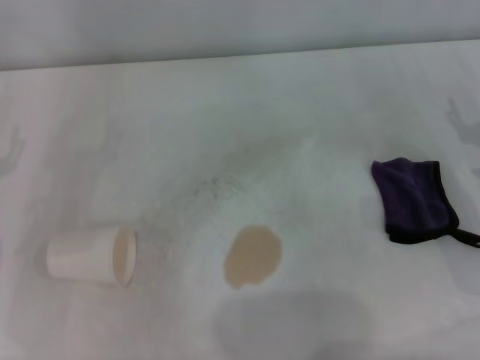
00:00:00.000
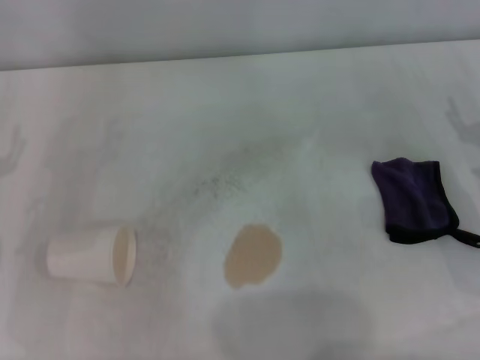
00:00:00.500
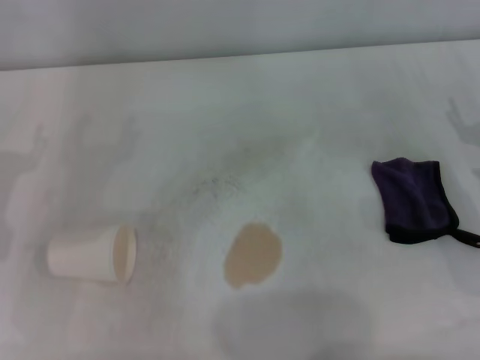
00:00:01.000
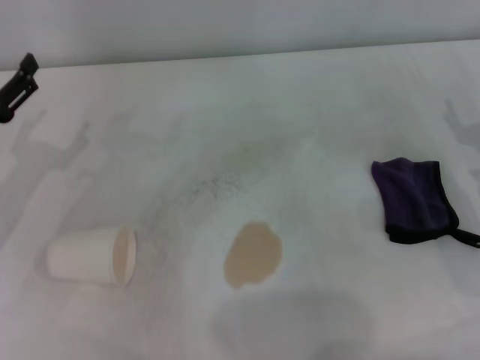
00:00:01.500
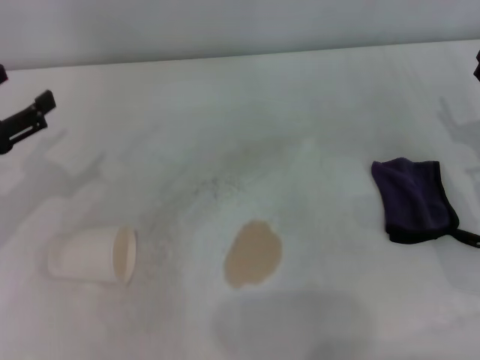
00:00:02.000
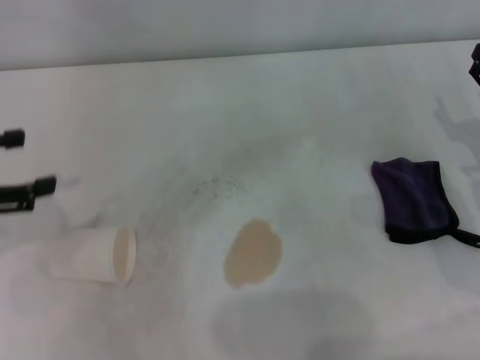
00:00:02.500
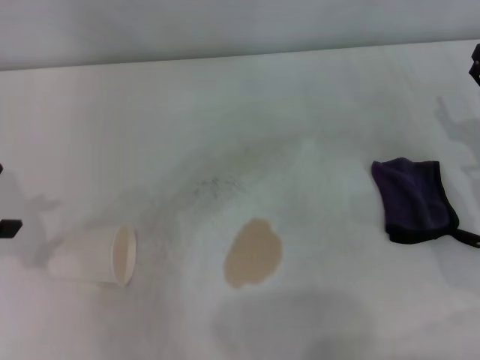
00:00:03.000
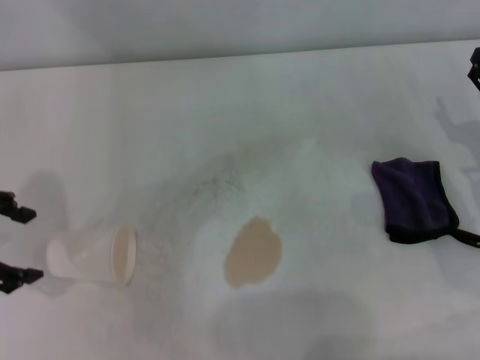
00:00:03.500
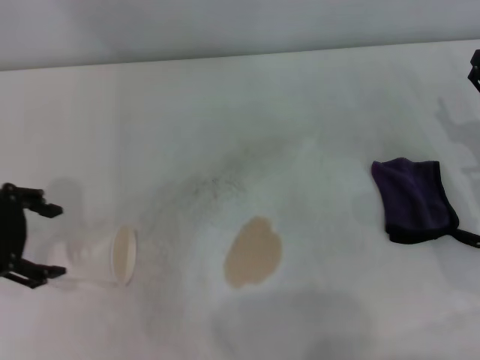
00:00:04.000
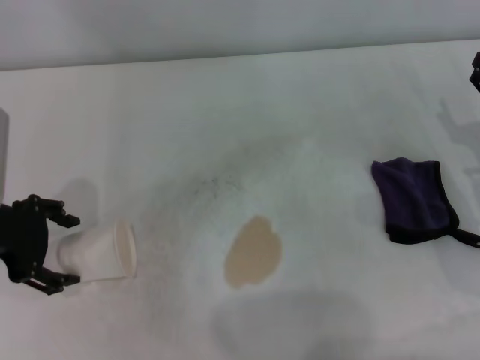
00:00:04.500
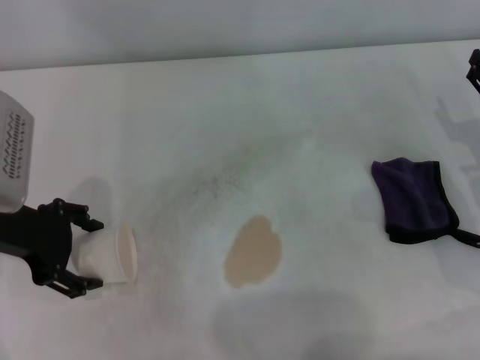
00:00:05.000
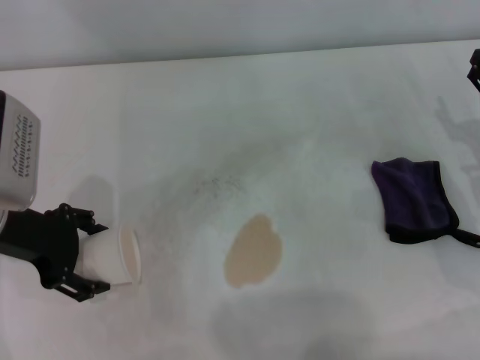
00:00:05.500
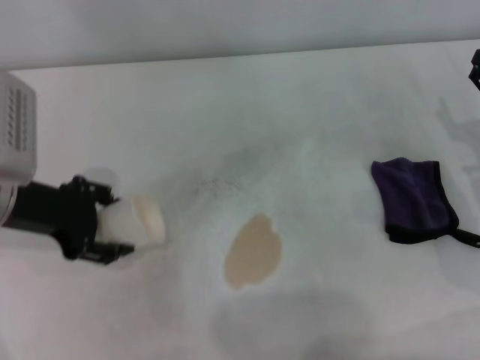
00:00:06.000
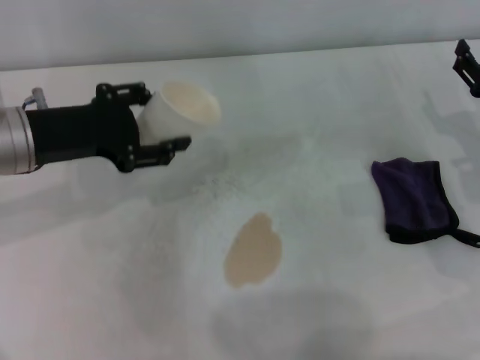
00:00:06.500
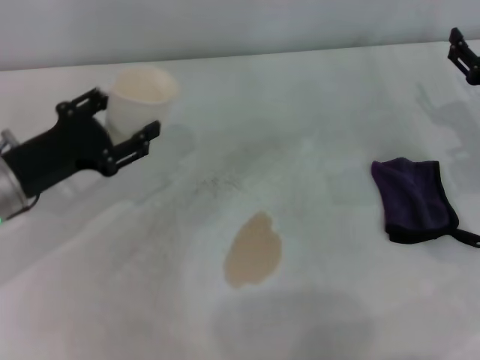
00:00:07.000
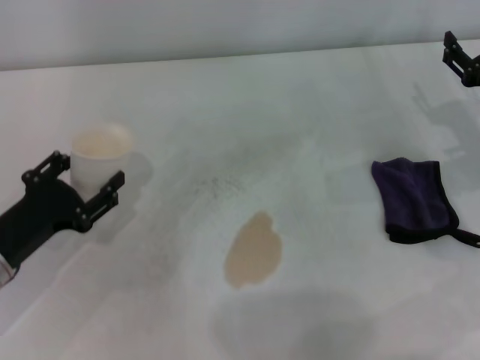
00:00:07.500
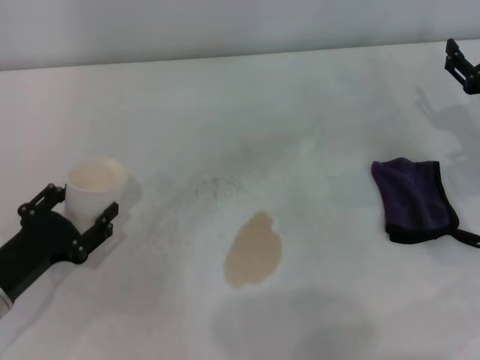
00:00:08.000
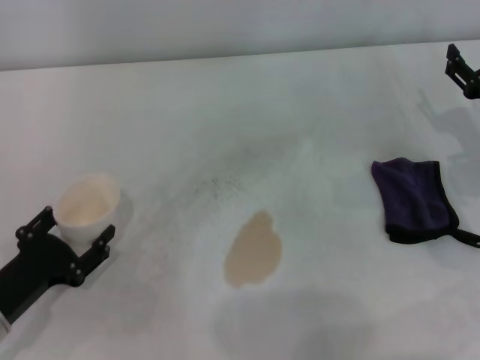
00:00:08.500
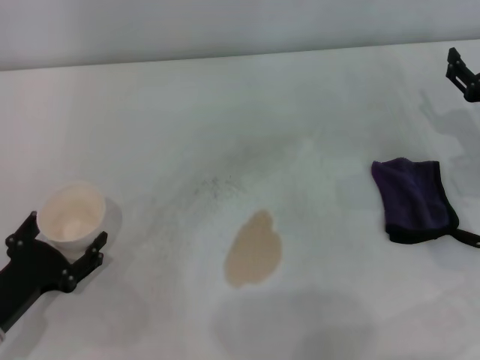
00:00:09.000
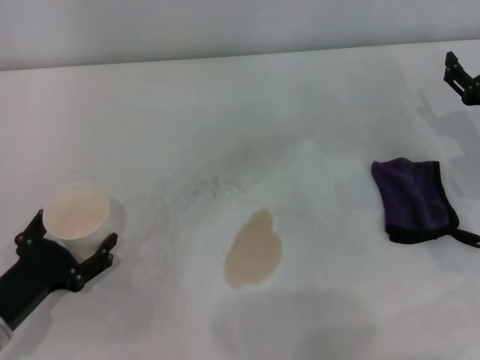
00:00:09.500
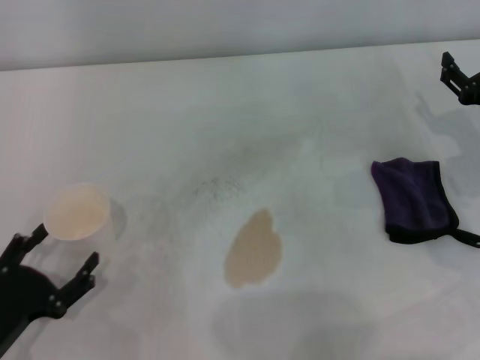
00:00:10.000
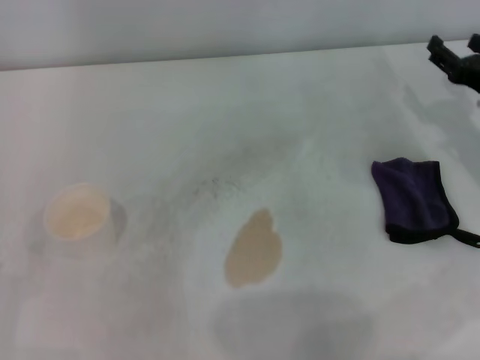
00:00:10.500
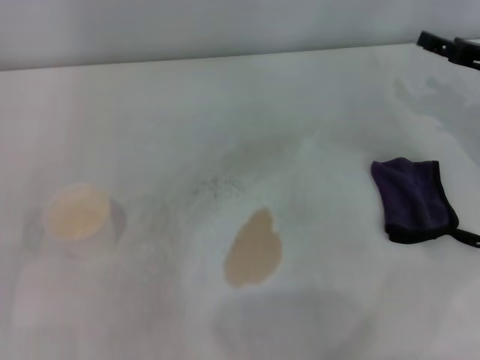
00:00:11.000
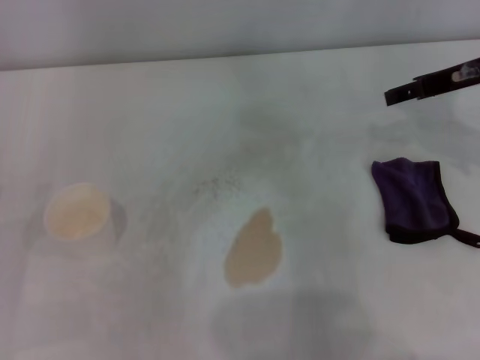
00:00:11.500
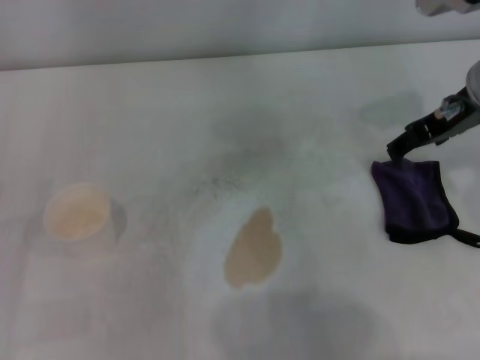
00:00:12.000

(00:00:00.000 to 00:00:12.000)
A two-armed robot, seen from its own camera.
Step, 00:00:00.000 - 00:00:05.500: Grasp the paper cup with the left gripper.
Step, 00:00:06.000 - 00:00:09.500: Stand the paper cup upright with the left gripper.
00:00:00.000 - 00:00:02.000: The left gripper moves upward, some 5 cm.
00:00:02.000 - 00:00:04.000: The left gripper shifts roughly 5 cm upward.
00:00:04.000 - 00:00:06.000: The left gripper moves some 5 cm.
00:00:06.000 - 00:00:08.000: The left gripper heads downward and backward, covering about 15 cm, and closes up.
00:00:08.000 - 00:00:10.000: The left gripper travels backward by some 5 cm, and opens up.
00:00:10.000 - 00:00:12.000: The right gripper shifts approximately 15 cm upward and to the left. The left gripper heads to the left, covering approximately 5 cm.

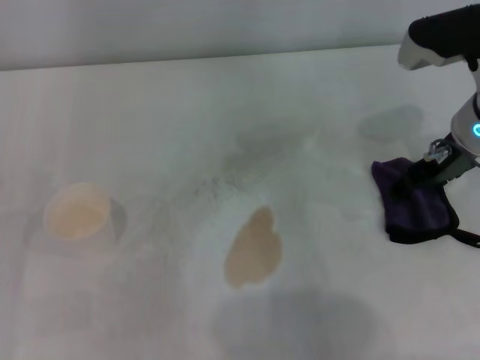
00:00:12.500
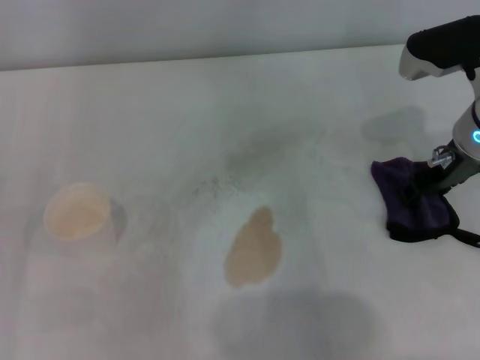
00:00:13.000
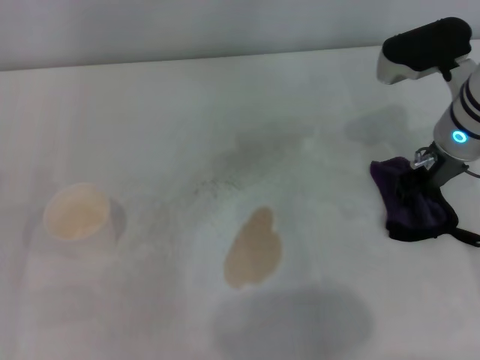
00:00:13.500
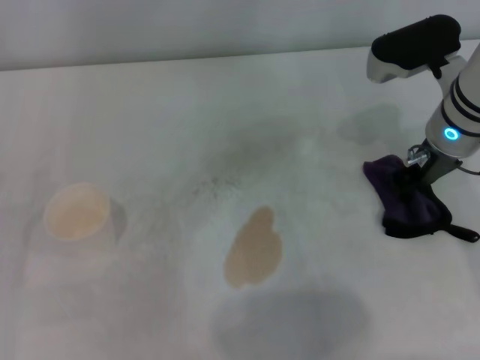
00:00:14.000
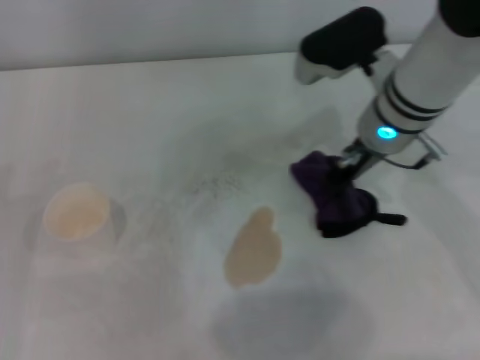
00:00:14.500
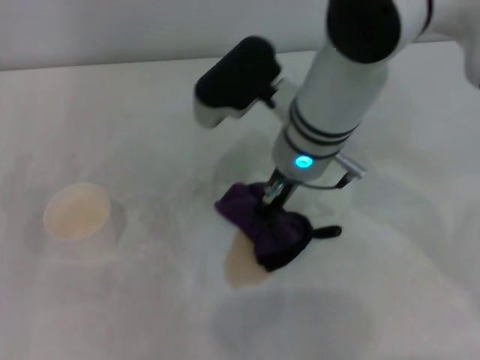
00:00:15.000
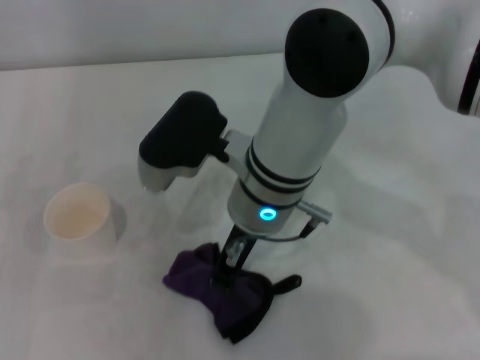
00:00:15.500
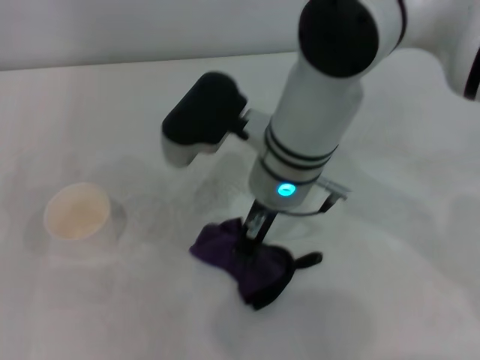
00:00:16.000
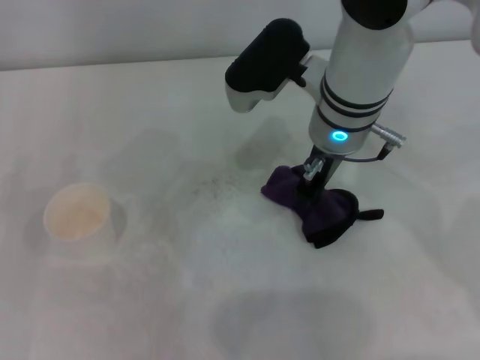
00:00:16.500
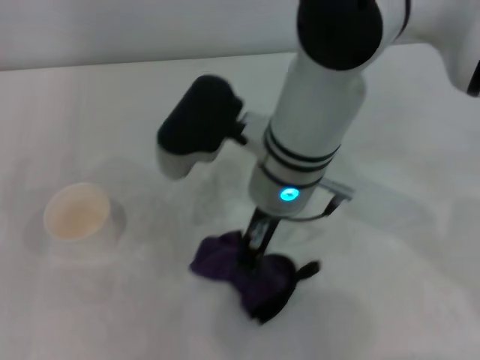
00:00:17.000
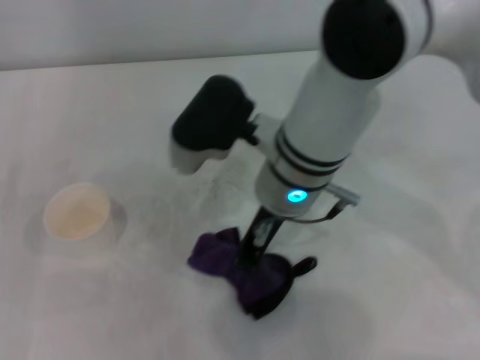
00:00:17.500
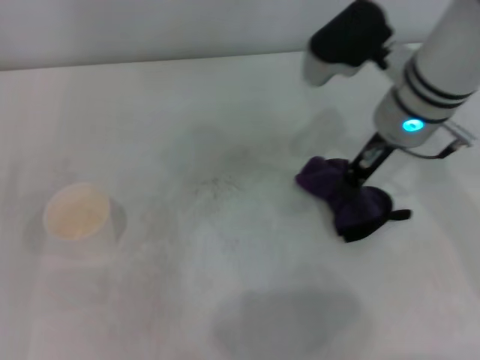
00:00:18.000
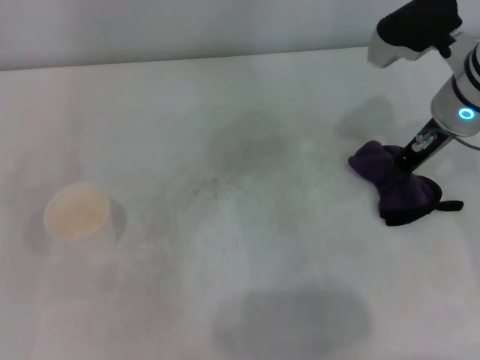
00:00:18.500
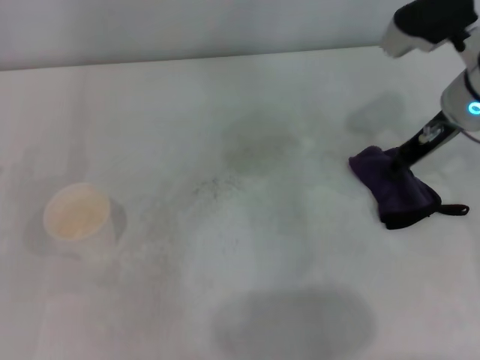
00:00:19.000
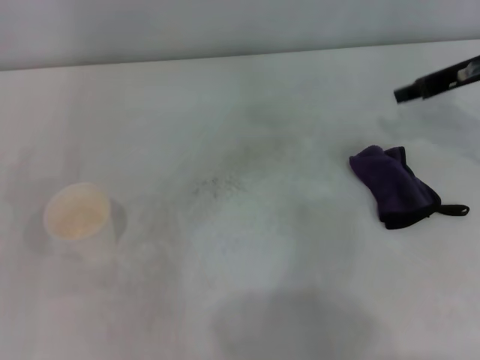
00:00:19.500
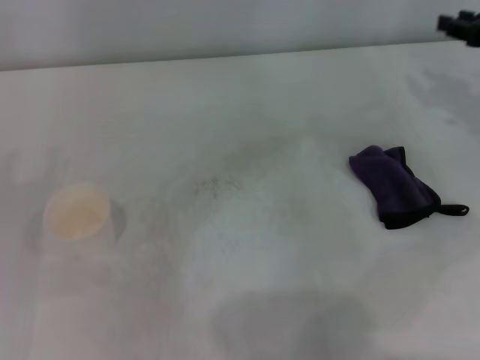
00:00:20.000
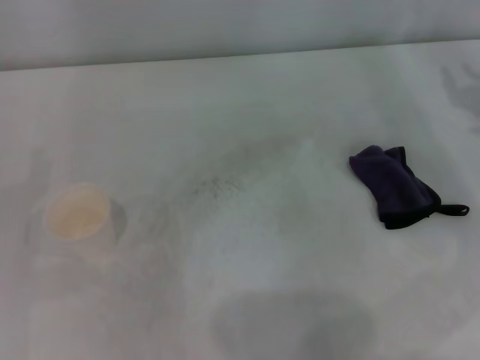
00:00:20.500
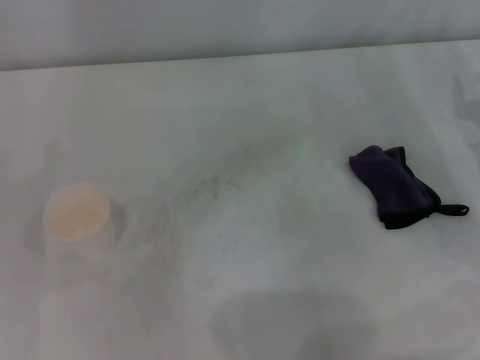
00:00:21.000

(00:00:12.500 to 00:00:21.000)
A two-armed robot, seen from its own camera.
Step, 00:00:14.000 - 00:00:18.000: Wipe the stains off the table with the right gripper.
00:00:12.500 - 00:00:14.500: The right gripper goes some 10 cm to the left, and closes up.
00:00:14.500 - 00:00:16.500: The right gripper is displaced to the left by roughly 5 cm.
00:00:16.500 - 00:00:19.000: The right gripper shifts about 15 cm to the right.
00:00:19.000 - 00:00:21.000: The right gripper is displaced to the right, downward and backward by some 15 cm.

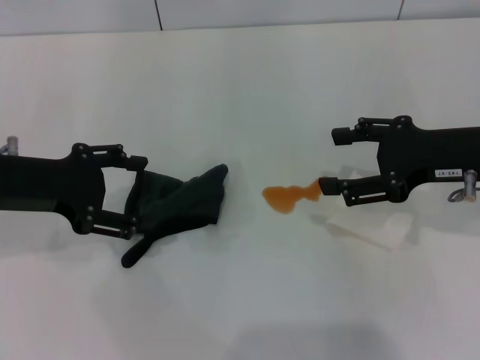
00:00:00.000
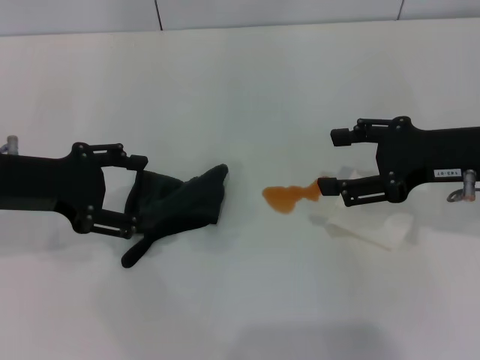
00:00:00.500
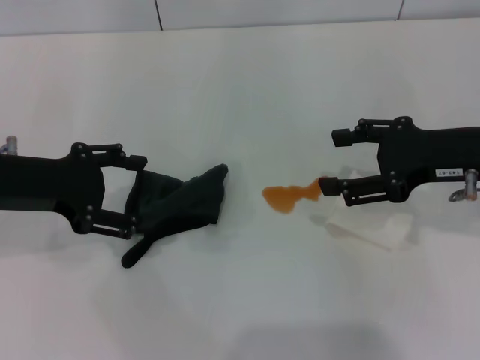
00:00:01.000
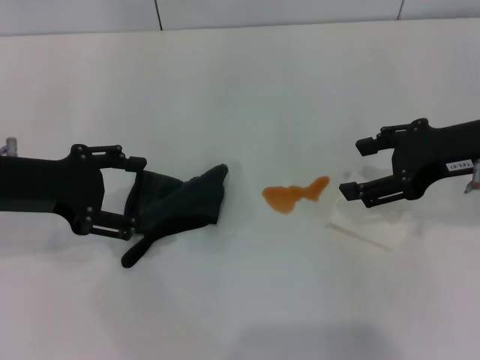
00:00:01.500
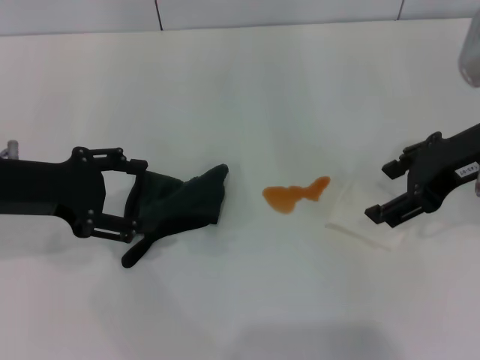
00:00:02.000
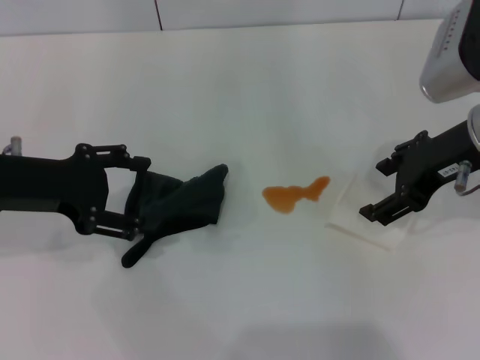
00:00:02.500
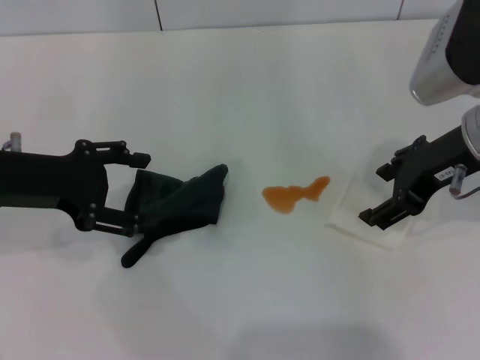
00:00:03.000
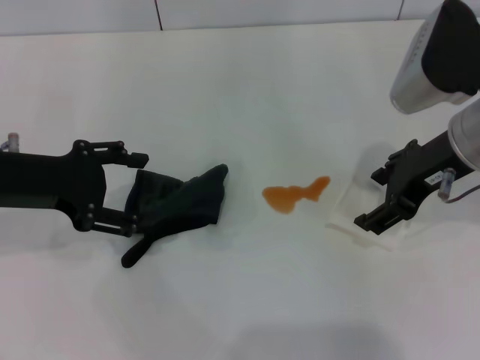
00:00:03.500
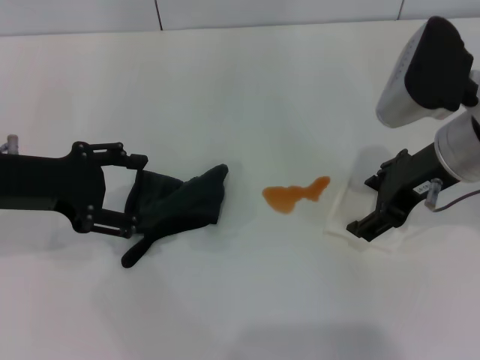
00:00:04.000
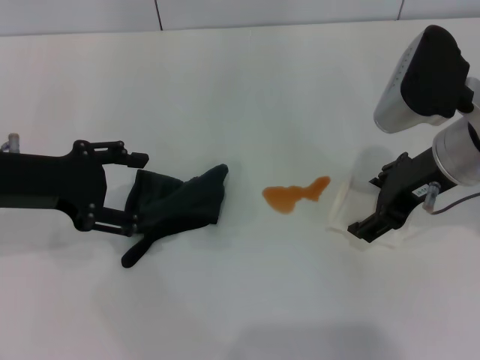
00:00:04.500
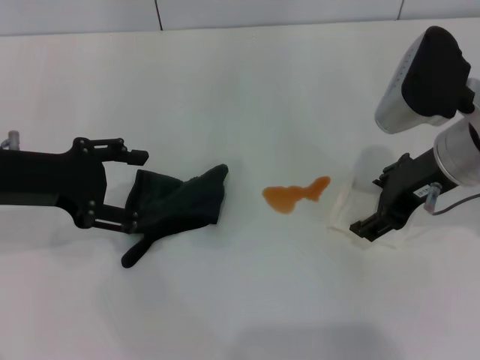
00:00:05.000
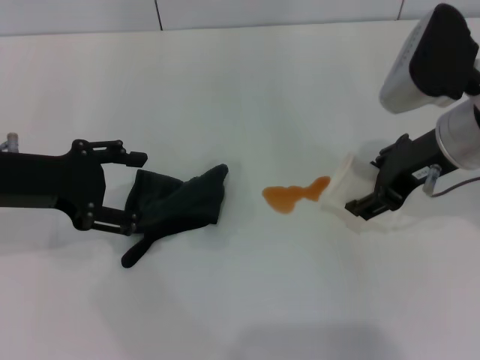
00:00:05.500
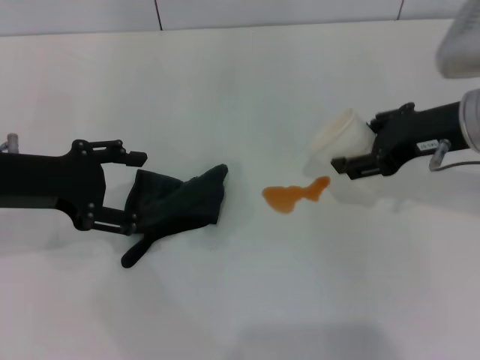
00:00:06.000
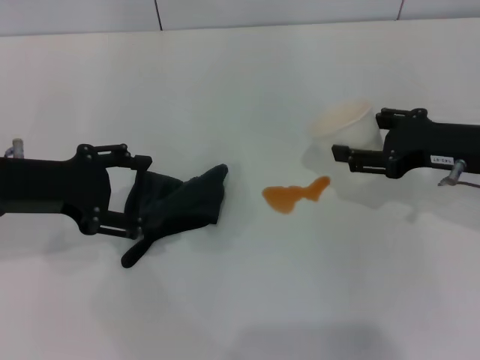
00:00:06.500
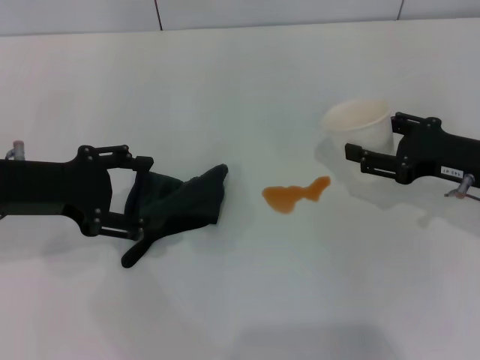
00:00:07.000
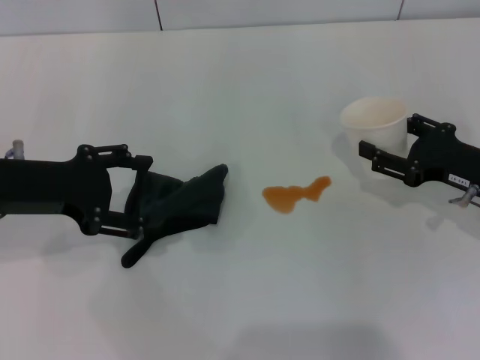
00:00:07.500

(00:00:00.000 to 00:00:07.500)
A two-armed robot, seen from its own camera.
Step, 00:00:00.000 - 00:00:04.500: Grasp the paper cup with the right gripper.
00:00:00.000 - 00:00:02.000: The right gripper goes about 5 cm upward.
00:00:02.000 - 00:00:04.000: The right gripper changes place by about 5 cm.
00:00:04.000 - 00:00:05.500: The right gripper closes its fingers.
00:00:05.500 - 00:00:07.500: The right gripper travels downward and to the right by about 15 cm.
